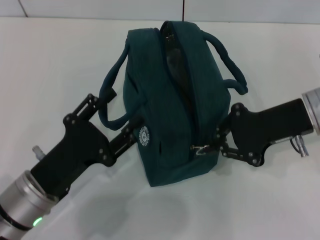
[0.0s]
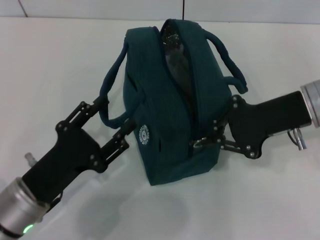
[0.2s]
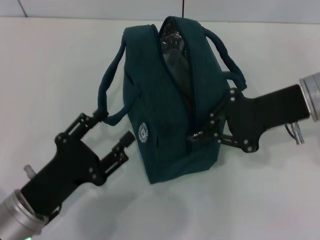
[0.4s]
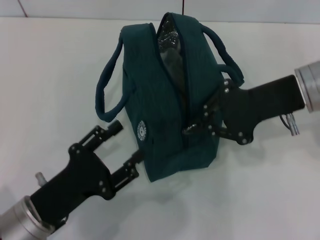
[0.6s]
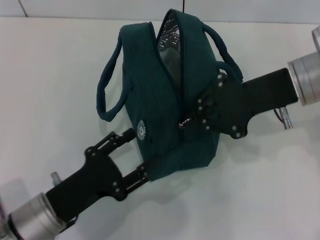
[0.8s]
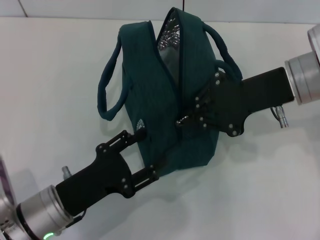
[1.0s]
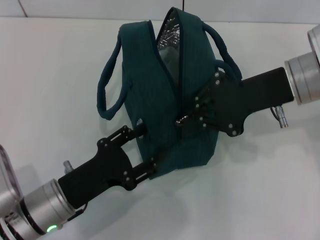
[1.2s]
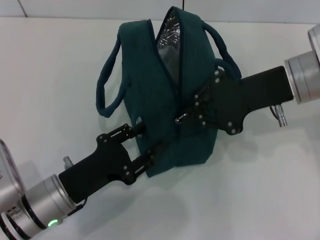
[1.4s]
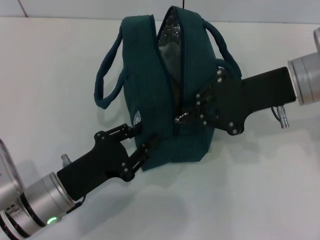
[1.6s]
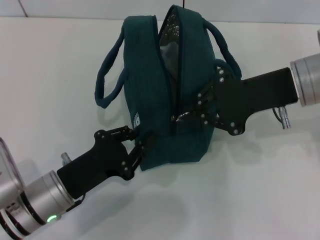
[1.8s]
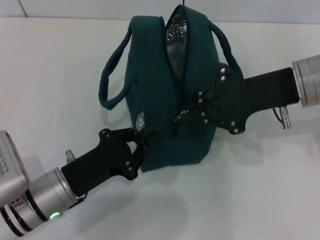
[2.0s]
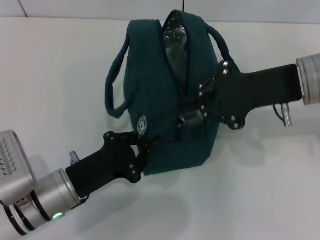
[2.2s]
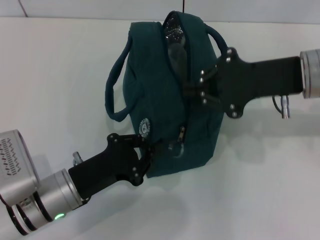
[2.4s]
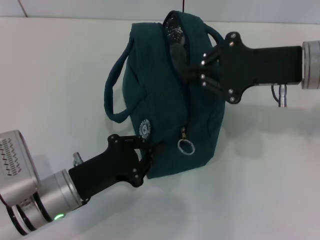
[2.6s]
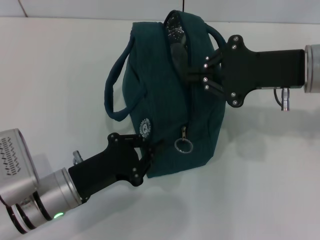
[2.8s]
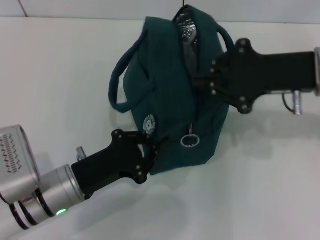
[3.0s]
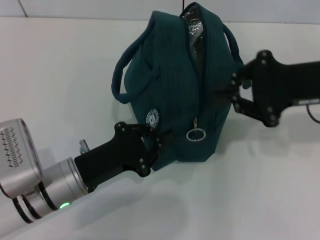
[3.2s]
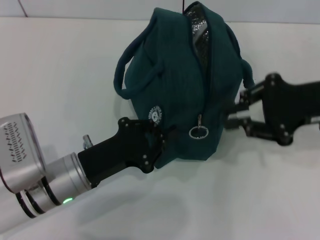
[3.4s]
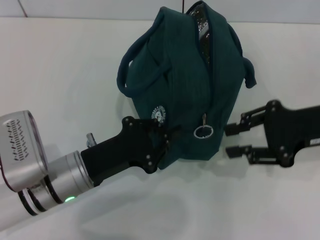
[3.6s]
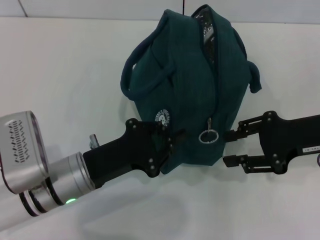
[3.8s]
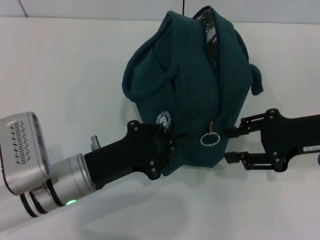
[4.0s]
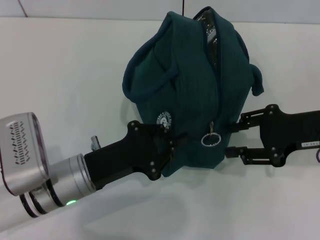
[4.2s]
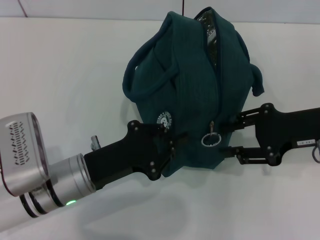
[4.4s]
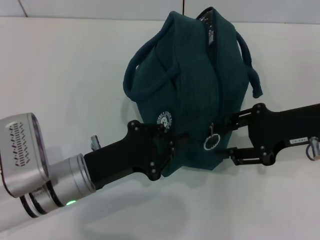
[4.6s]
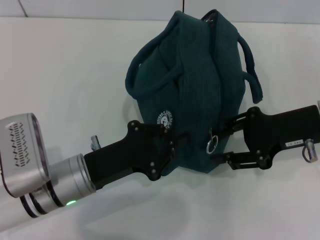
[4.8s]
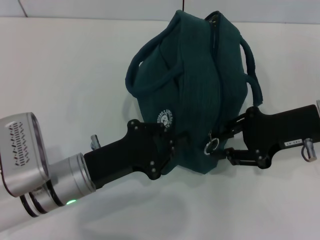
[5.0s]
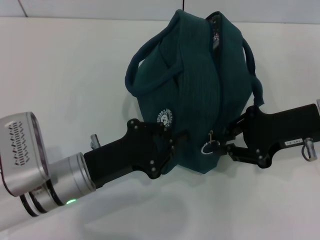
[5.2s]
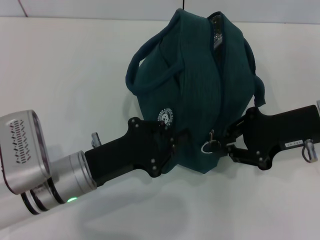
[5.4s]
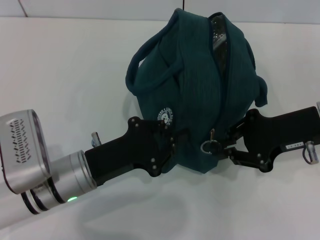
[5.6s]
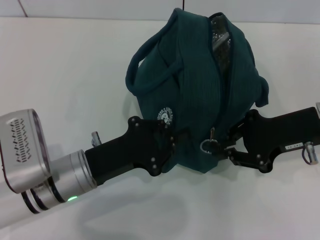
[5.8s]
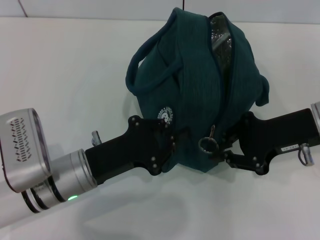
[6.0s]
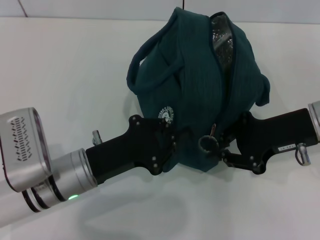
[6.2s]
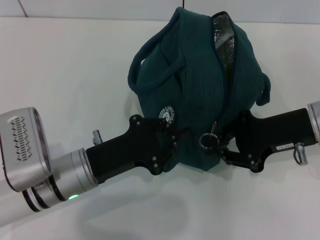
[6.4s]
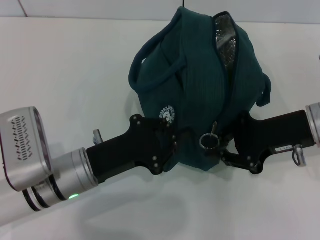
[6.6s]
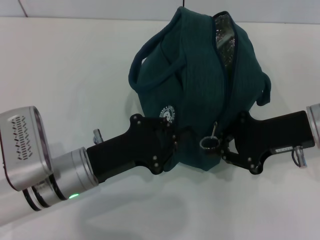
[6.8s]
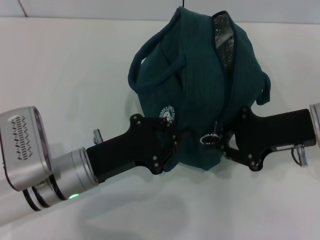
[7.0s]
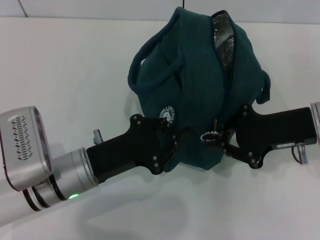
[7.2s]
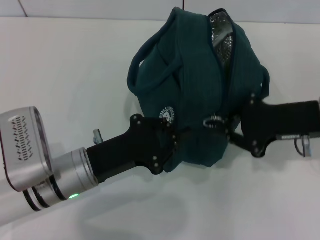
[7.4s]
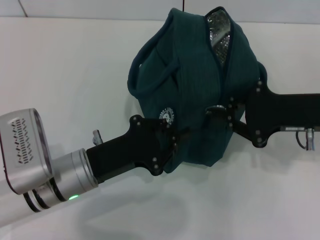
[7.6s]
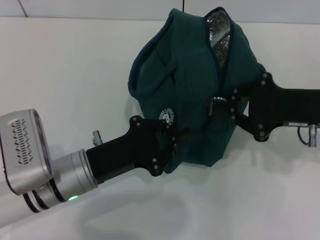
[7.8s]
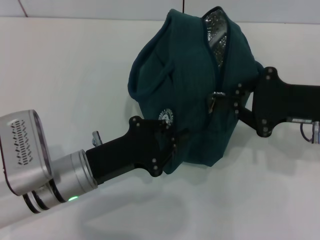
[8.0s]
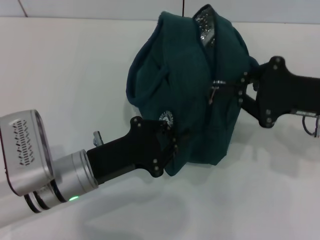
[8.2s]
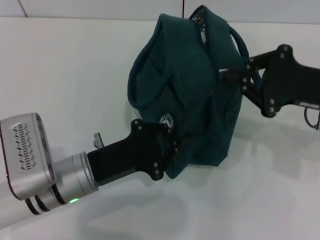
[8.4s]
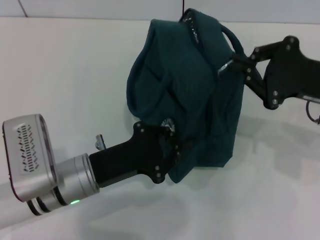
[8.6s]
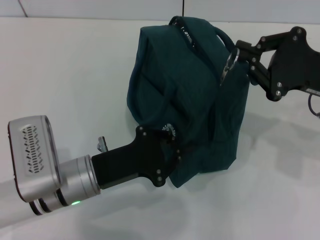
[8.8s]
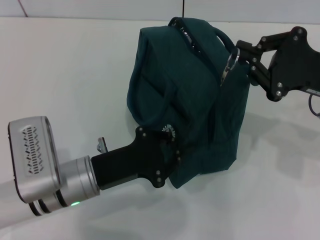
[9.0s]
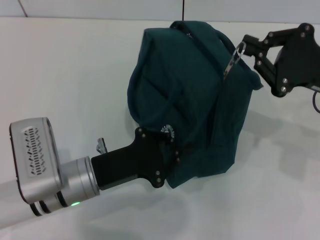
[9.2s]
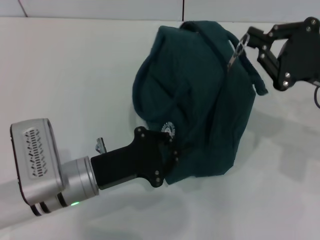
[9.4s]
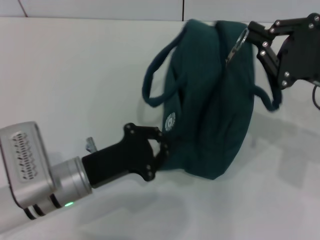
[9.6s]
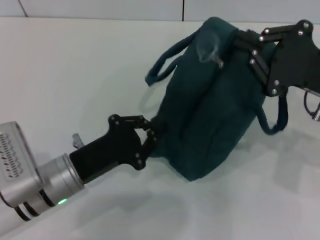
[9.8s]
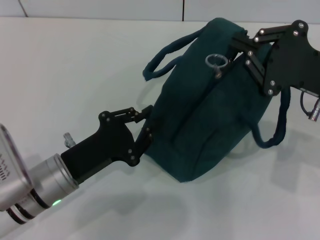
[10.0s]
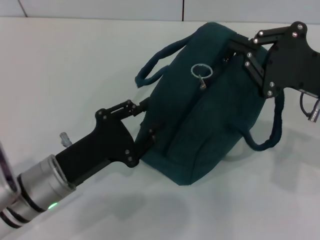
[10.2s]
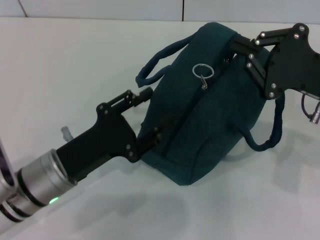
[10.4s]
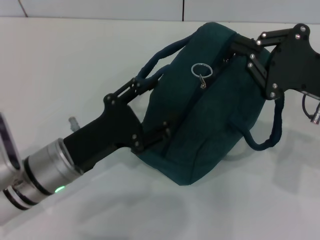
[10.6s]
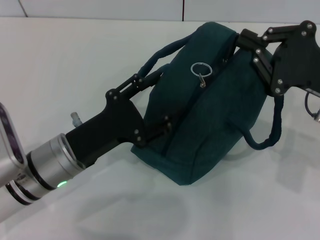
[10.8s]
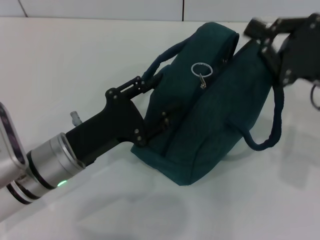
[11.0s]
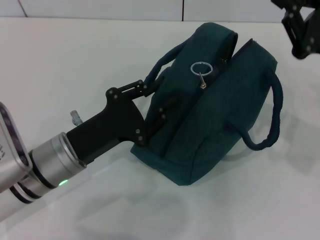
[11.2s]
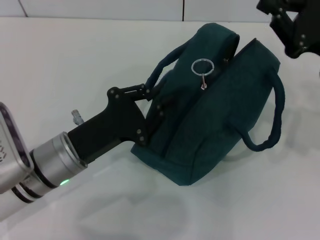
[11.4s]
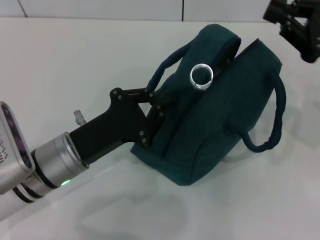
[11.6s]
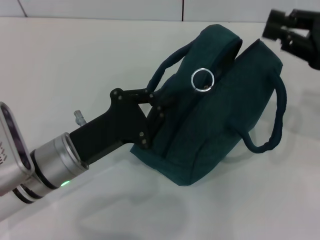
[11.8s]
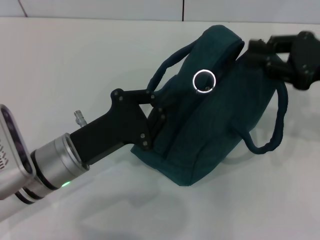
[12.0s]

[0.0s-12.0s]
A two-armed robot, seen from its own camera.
1.6s to 3.0s: The left gripper closes its fingers.
3.0s to 4.4s: The right gripper moves about 5 cm, and opens its fingers.
4.4s to 6.0s: The right gripper closes up.
9.0s to 10.4s: The left gripper opens its fingers.
10.4s to 12.0s: The left gripper closes, while the right gripper shifts by about 5 cm.

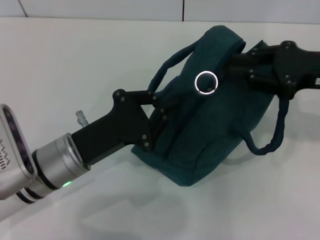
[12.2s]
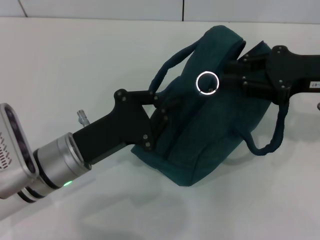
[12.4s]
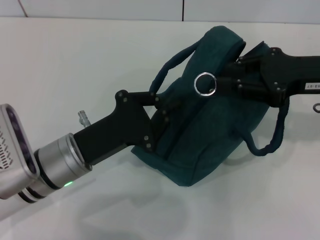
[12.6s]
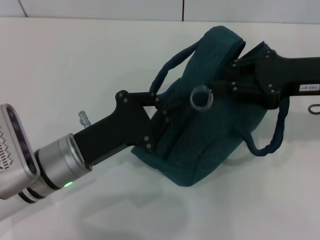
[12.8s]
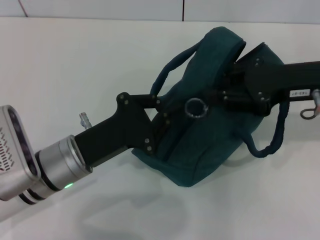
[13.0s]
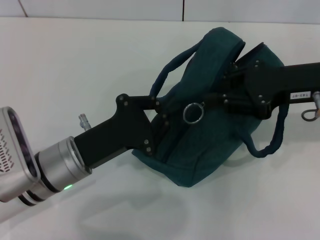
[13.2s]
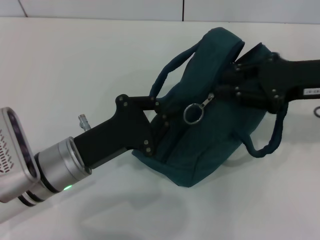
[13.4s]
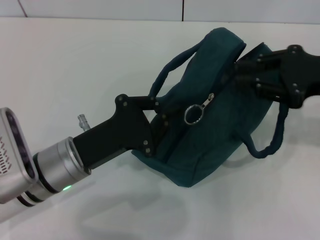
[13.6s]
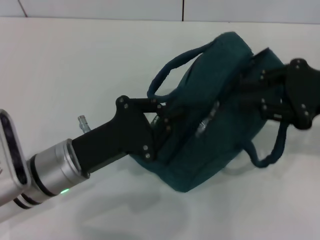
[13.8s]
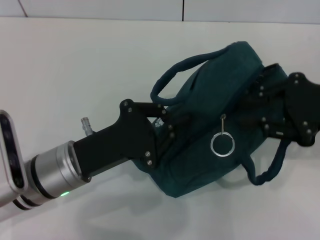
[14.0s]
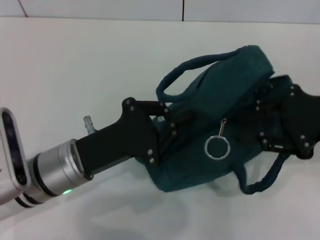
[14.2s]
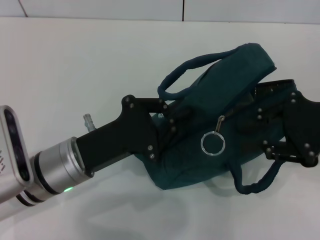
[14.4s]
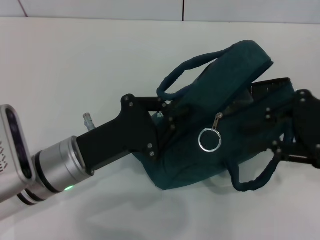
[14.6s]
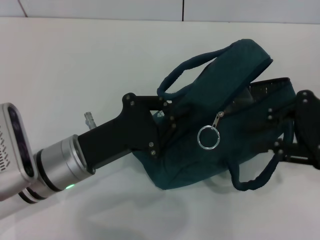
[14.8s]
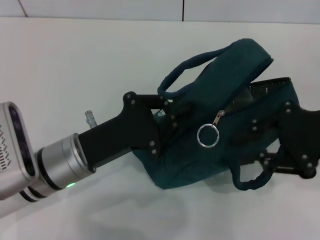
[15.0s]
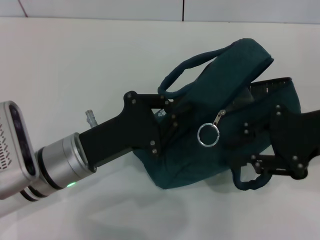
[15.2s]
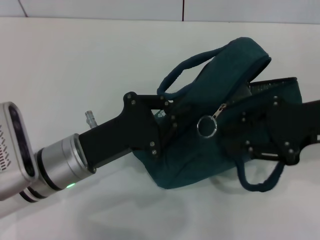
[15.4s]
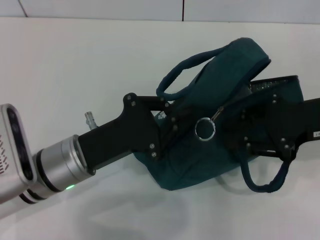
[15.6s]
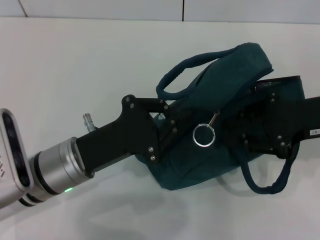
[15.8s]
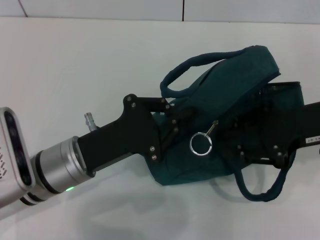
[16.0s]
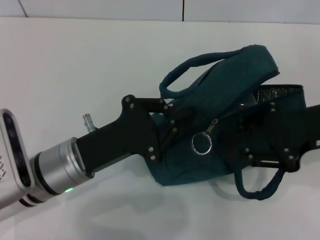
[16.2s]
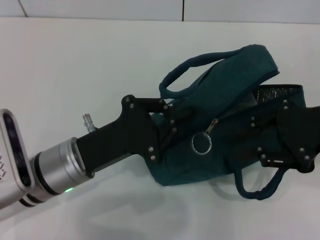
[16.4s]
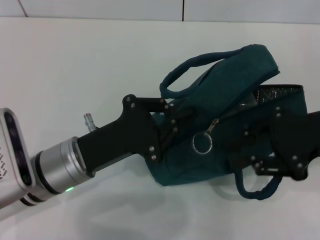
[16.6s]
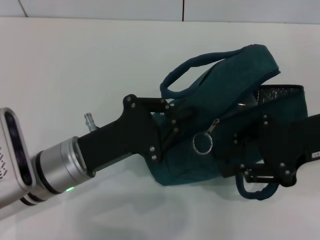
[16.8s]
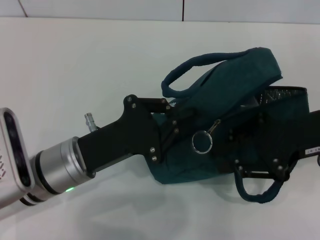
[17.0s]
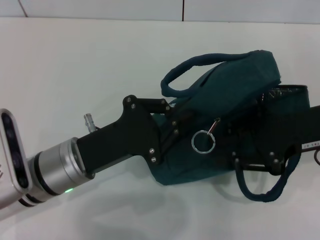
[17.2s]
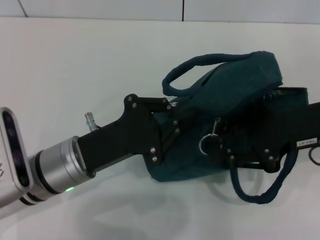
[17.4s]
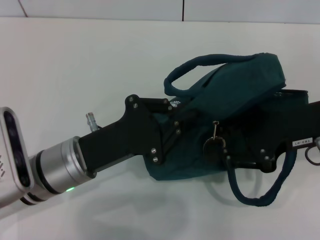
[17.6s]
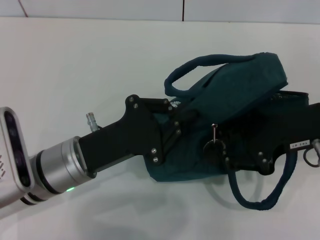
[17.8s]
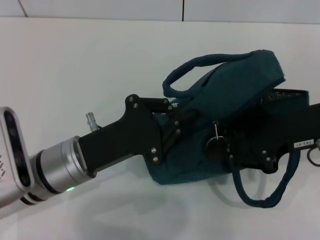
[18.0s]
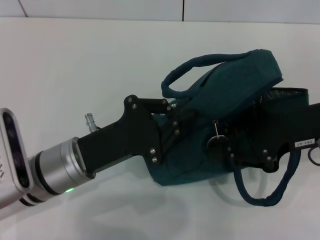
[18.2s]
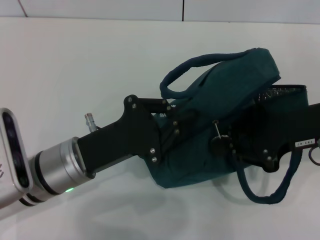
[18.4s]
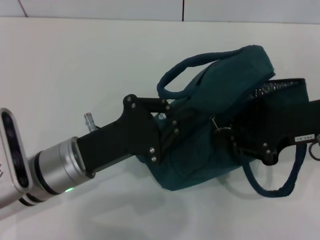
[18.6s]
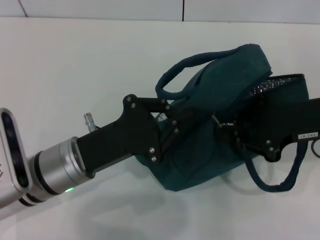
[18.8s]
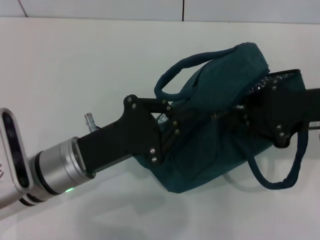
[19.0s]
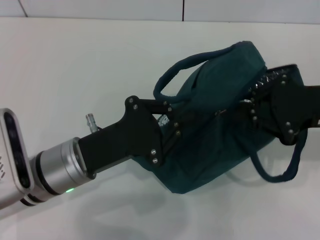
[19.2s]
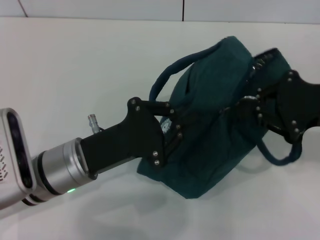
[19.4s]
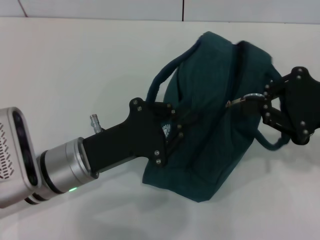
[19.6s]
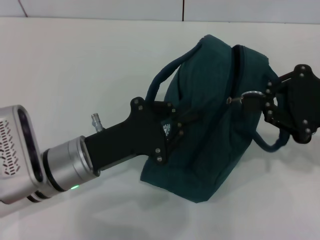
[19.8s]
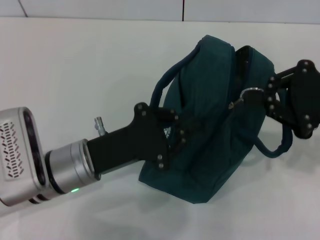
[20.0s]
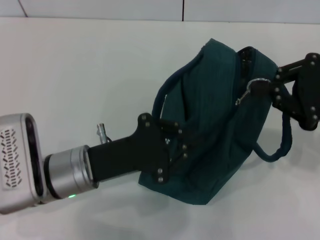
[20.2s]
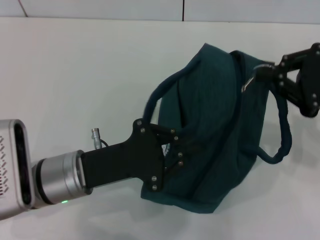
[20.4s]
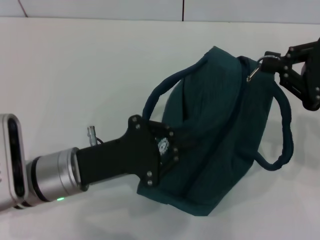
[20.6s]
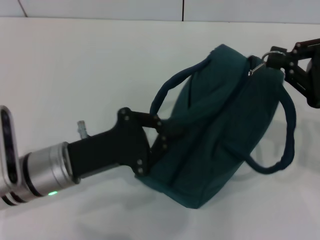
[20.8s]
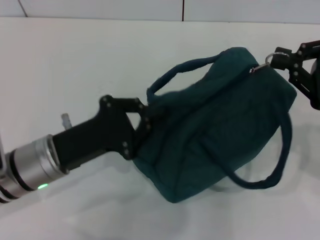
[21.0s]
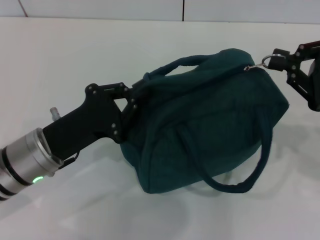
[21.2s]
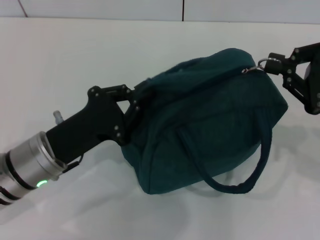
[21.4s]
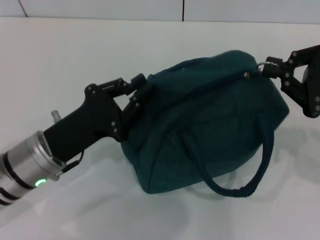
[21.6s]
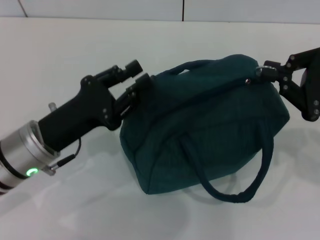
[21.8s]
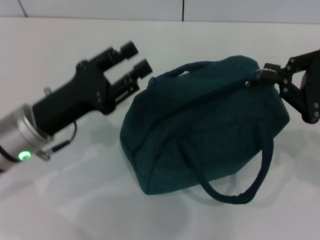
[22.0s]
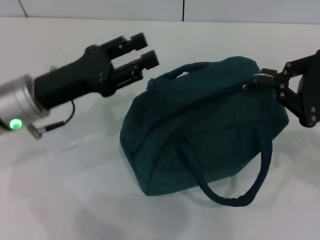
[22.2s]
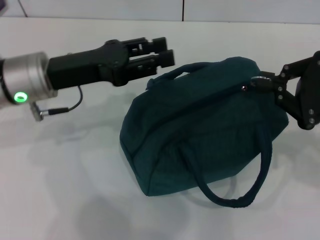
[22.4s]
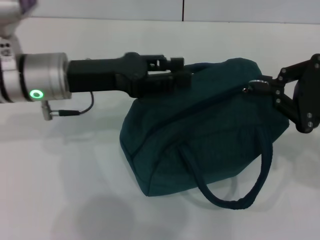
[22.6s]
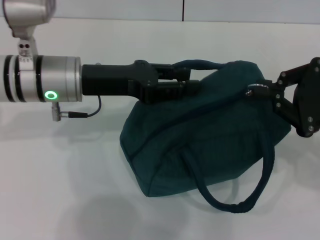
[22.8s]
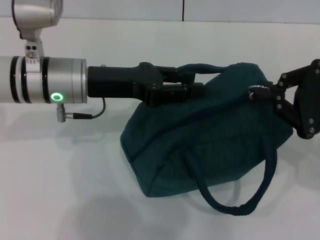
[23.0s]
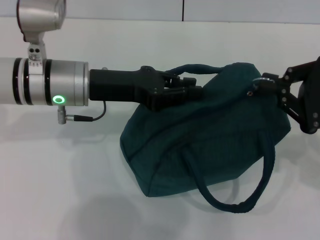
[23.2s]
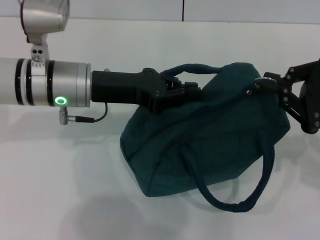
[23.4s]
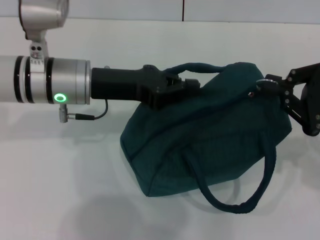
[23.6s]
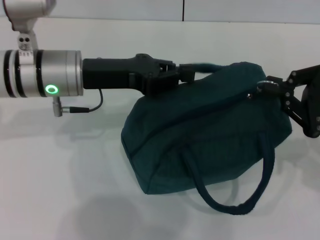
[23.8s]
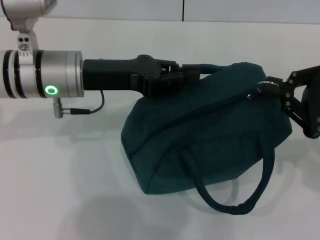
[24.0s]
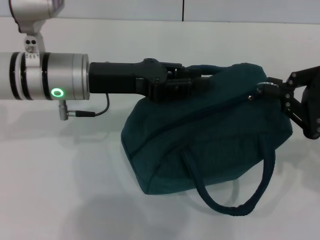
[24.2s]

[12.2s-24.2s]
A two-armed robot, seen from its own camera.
12.2s to 13.8s: The grippers stay close to where they were, moving slightly.
15.2s to 18.2s: The grippers stay close to where they were, moving slightly.
21.2s to 22.6s: The left gripper moves forward and upward, some 10 cm, and opens.
22.6s to 24.2s: The left gripper closes.
